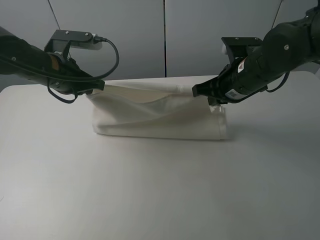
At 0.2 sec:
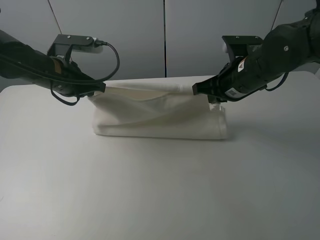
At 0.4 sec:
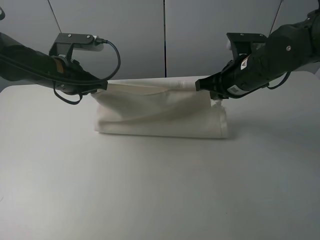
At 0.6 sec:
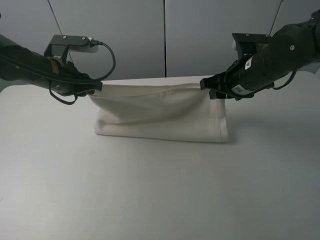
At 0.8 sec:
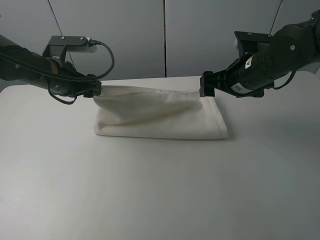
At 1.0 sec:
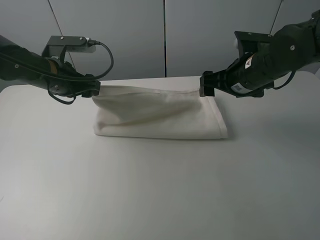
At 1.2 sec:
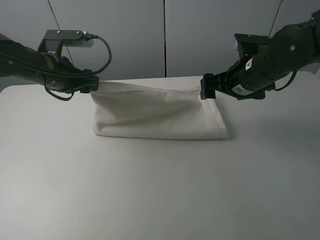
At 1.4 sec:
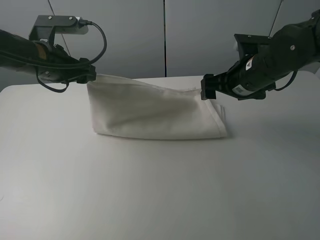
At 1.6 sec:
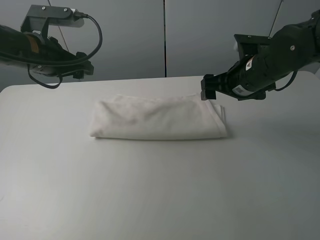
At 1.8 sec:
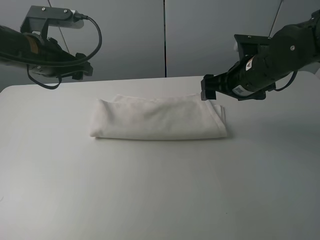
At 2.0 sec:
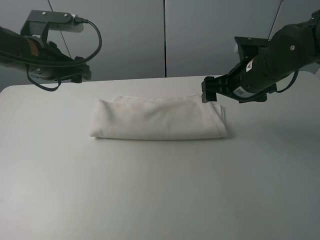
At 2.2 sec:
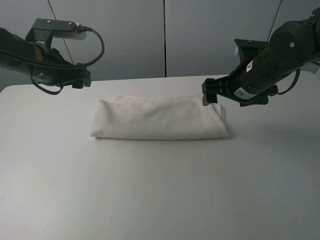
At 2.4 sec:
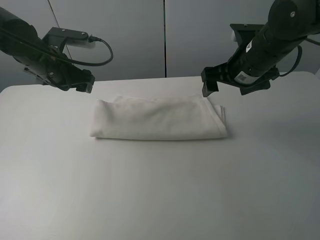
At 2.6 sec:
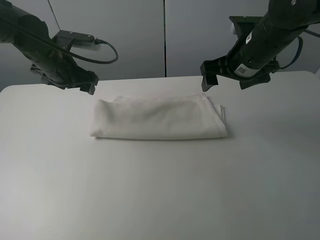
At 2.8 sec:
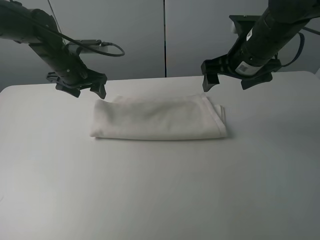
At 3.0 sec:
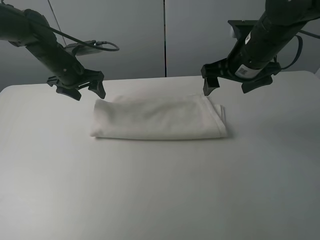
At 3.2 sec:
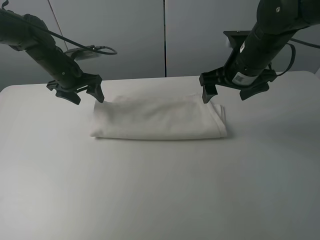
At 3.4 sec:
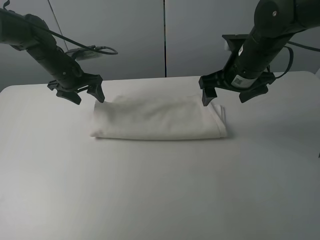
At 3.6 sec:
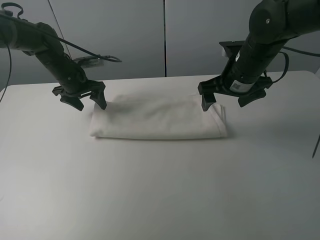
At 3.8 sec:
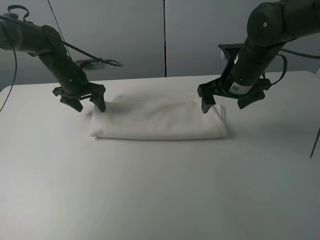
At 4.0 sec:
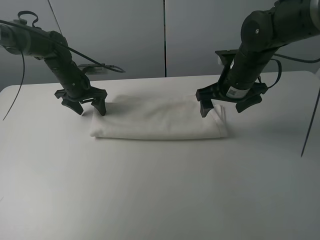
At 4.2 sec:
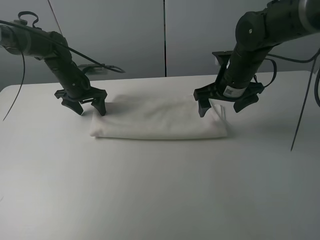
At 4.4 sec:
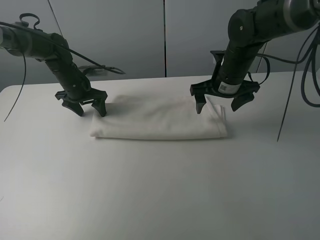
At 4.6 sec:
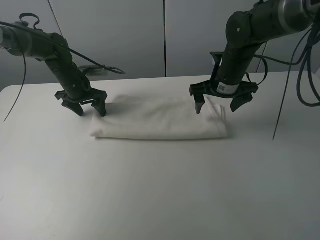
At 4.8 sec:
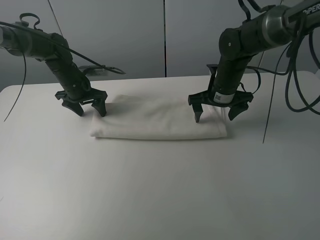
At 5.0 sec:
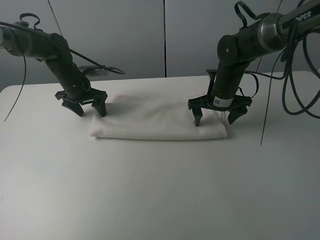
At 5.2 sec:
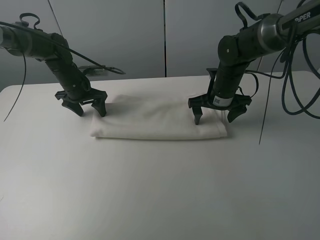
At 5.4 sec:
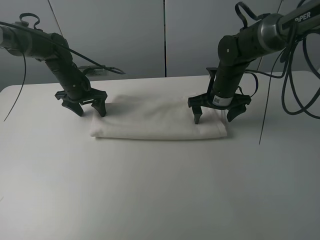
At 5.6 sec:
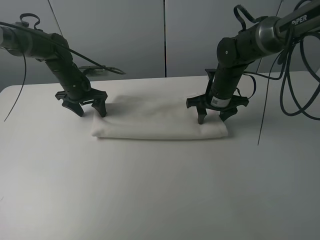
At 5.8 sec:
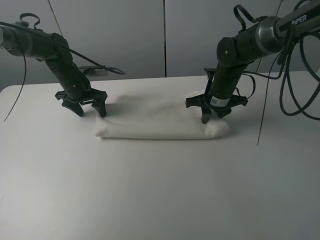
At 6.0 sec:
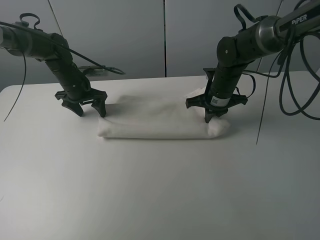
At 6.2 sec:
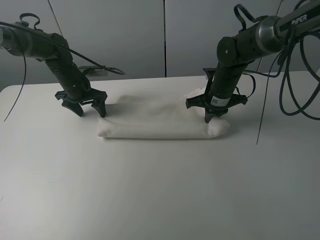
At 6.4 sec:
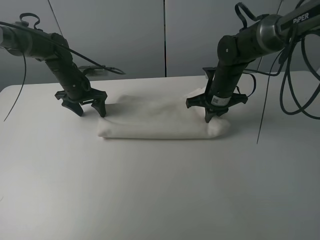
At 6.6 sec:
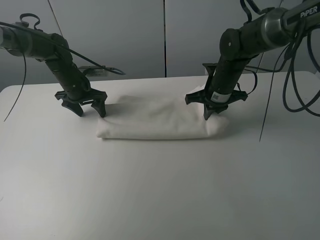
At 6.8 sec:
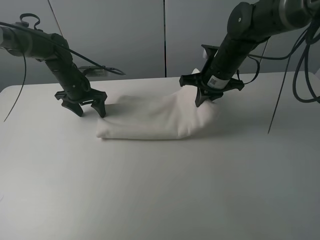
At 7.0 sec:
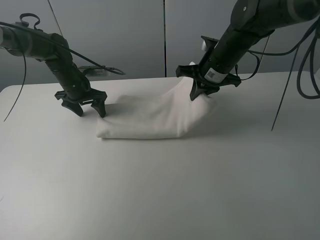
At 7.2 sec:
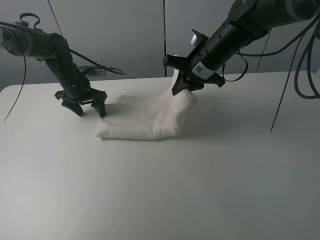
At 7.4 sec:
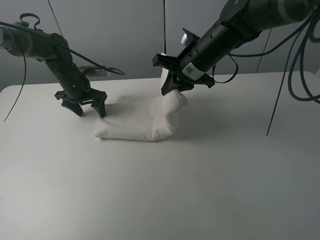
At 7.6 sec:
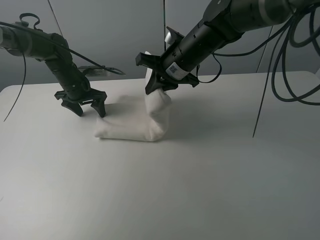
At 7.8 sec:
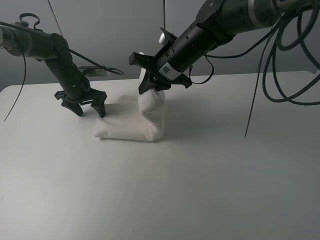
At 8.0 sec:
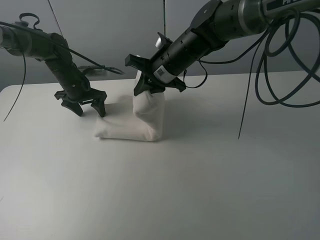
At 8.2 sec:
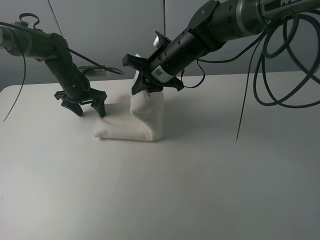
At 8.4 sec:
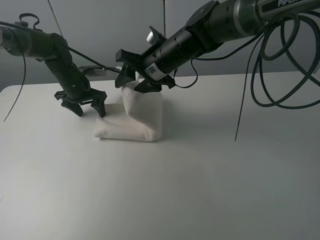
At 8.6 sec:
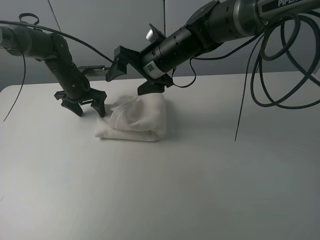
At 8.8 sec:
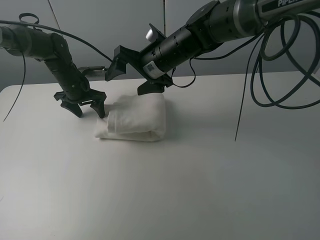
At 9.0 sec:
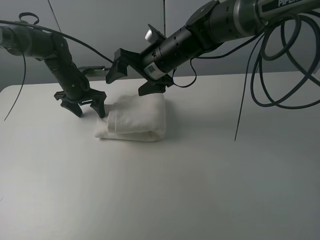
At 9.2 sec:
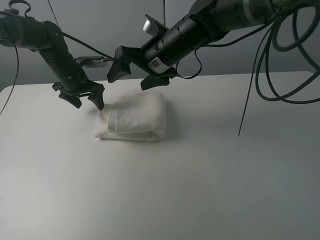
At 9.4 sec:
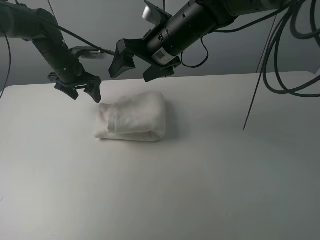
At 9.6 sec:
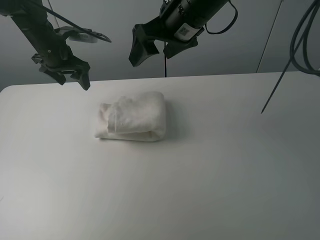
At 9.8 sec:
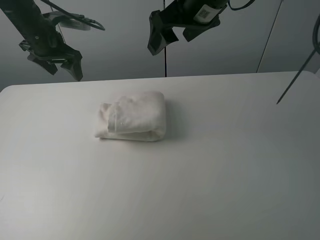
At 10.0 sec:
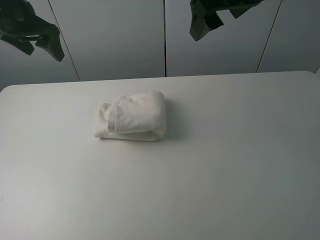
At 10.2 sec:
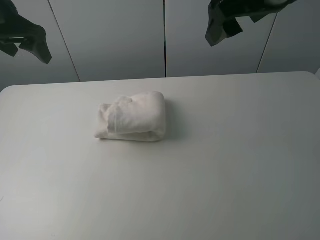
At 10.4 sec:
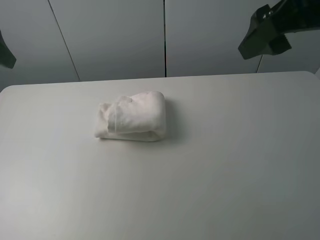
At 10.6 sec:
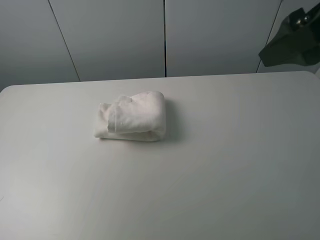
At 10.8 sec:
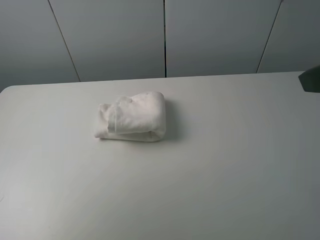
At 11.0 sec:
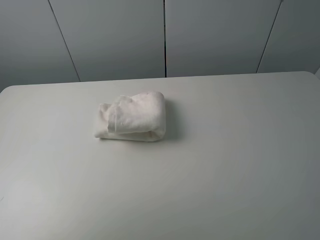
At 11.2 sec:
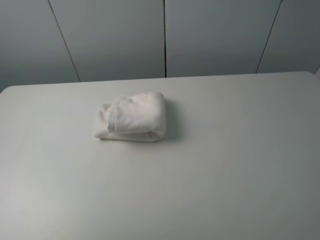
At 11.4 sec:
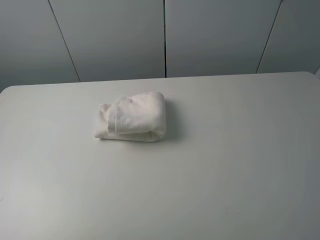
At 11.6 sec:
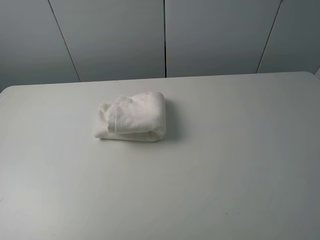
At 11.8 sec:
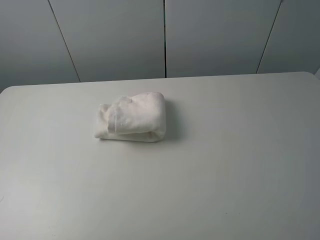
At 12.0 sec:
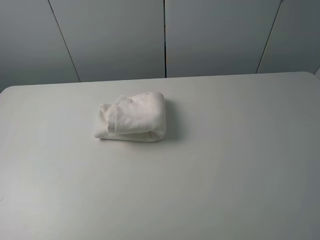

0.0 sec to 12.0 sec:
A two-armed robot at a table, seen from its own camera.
Task of the whole recording: fold the towels on the table.
Step, 2.0 sec to 4.4 sec: Press on the white towel with the left gripper.
Step, 4.6 sec to 8.8 sec: Fold the white towel from right to left with right gripper.
0.0 sec to 1.6 sec: The left gripper opens. Meanwhile the right gripper opens up.
1.6 sec to 3.0 sec: The left gripper goes approximately 10 cm forward and downward.
3.0 sec to 4.4 sec: Both grippers travel together downward, roughly 5 cm.
4.4 sec to 6.0 sec: The right gripper goes roughly 5 cm downward, and closes up.
6.0 sec to 7.6 sec: The right gripper heads to the left and upward, covering roughly 15 cm.
7.6 sec to 9.0 sec: The right gripper opens.
9.0 sec to 10.4 sec: The left gripper heads upward, backward and to the left, covering about 35 cm. Meanwhile the right gripper moves to the right, upward and backward, roughly 30 cm.
10.4 sec to 12.0 sec: The right gripper is displaced backward, to the right and downward by approximately 25 cm; the left gripper travels backward and to the left by about 25 cm.

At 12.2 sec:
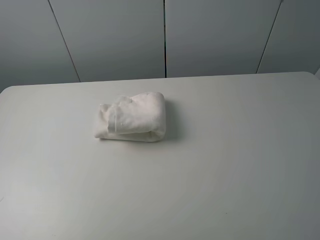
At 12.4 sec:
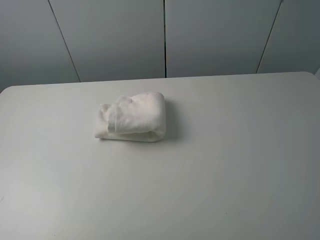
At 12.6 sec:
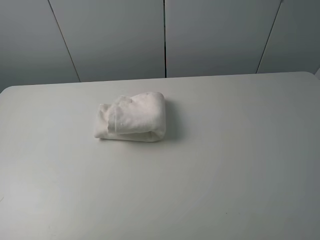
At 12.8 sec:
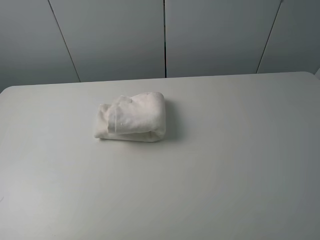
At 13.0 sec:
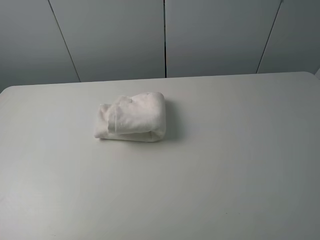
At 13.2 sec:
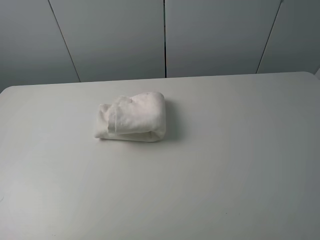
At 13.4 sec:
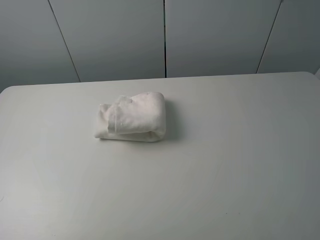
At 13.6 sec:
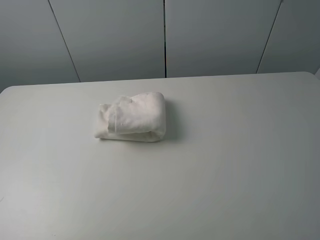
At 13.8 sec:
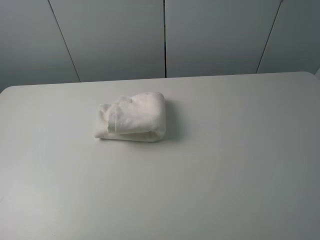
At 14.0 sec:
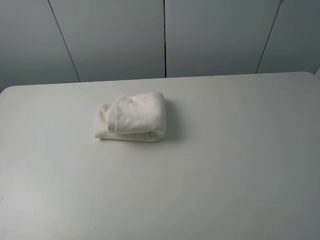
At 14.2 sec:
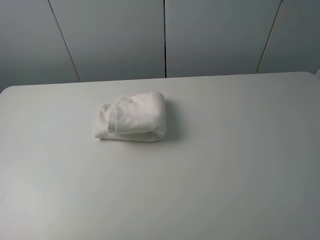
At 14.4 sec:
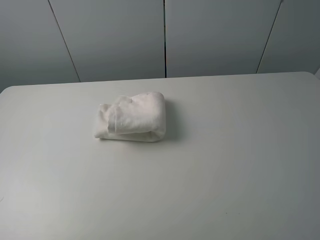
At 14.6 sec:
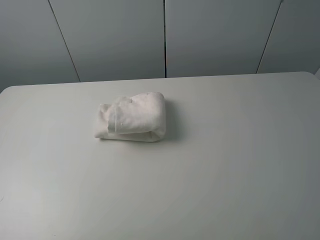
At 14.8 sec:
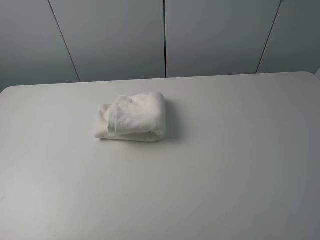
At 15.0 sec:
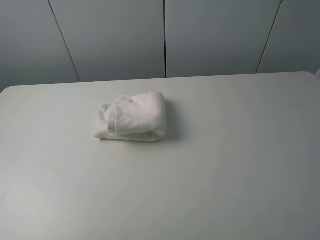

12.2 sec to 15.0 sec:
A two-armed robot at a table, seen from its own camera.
Task of the whole recording: fold the towels on the table.
13.6 sec to 15.0 sec: Both grippers stay put.
